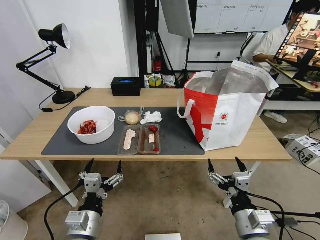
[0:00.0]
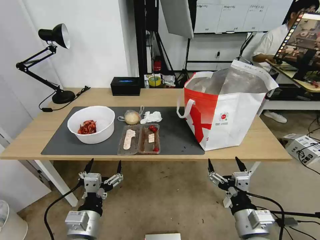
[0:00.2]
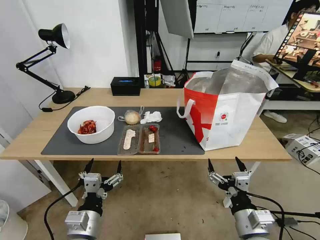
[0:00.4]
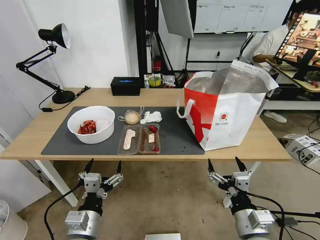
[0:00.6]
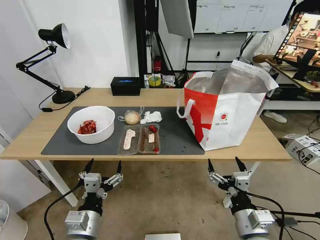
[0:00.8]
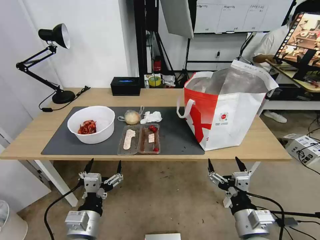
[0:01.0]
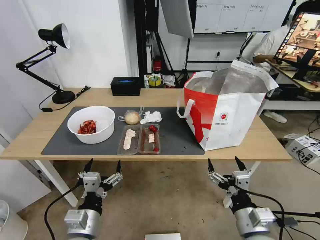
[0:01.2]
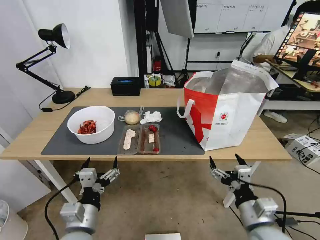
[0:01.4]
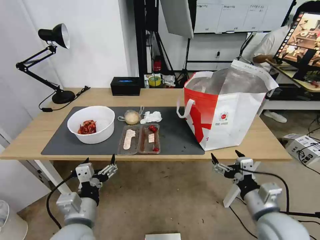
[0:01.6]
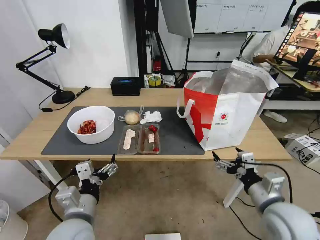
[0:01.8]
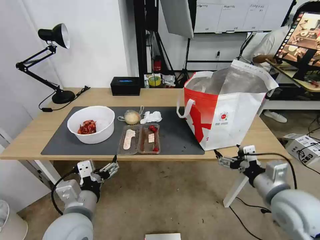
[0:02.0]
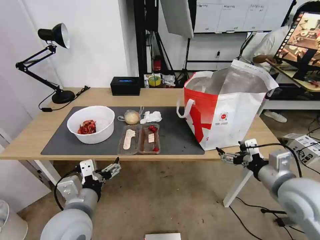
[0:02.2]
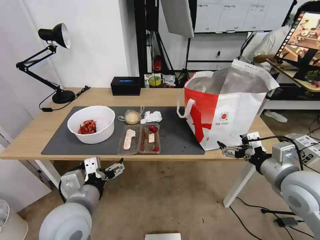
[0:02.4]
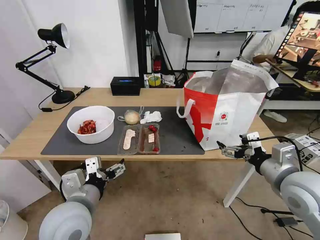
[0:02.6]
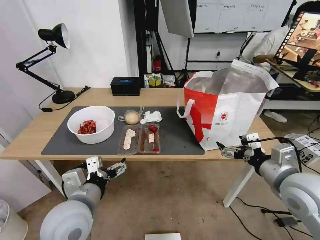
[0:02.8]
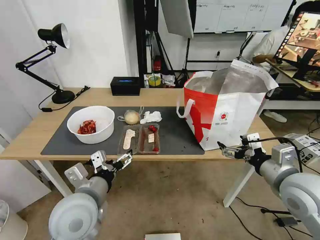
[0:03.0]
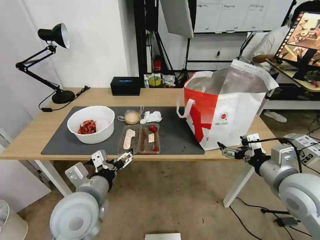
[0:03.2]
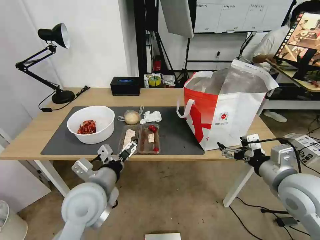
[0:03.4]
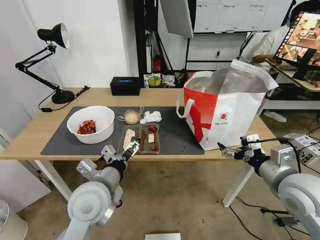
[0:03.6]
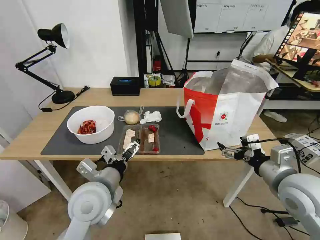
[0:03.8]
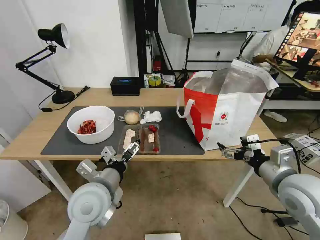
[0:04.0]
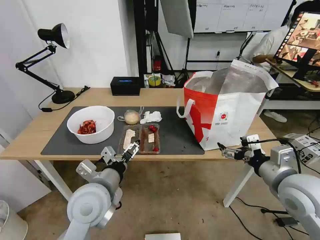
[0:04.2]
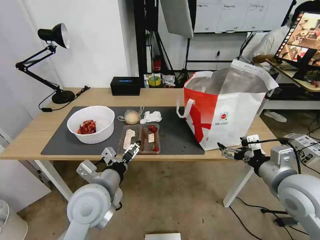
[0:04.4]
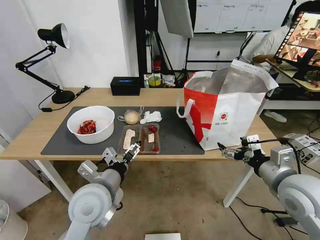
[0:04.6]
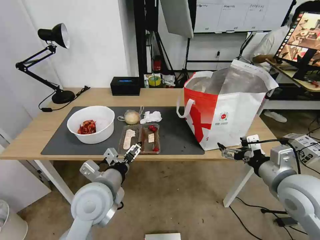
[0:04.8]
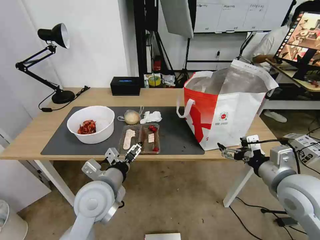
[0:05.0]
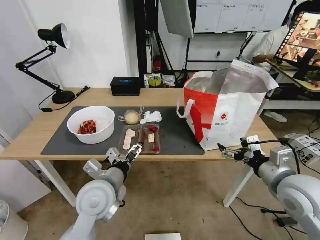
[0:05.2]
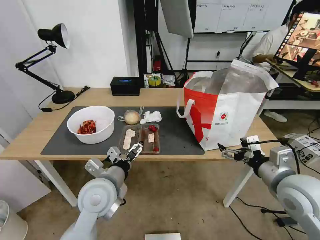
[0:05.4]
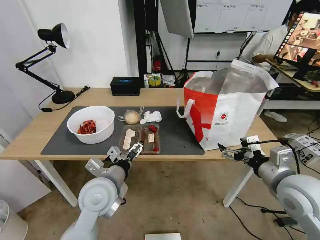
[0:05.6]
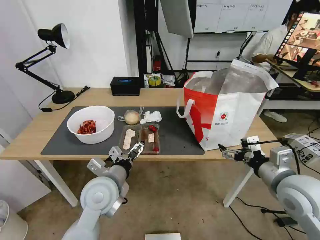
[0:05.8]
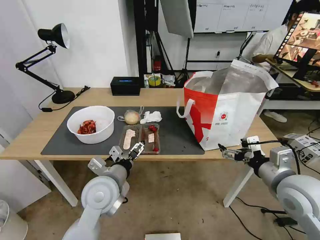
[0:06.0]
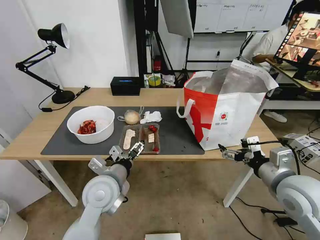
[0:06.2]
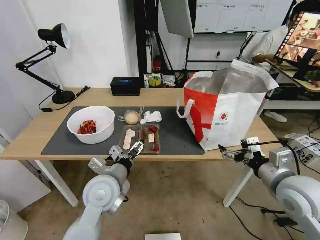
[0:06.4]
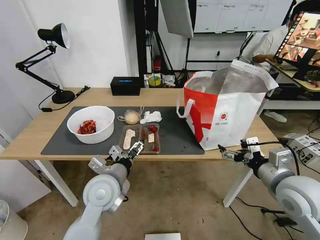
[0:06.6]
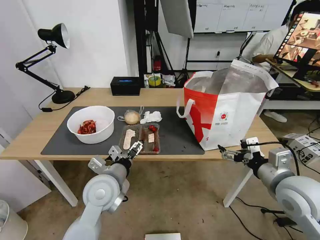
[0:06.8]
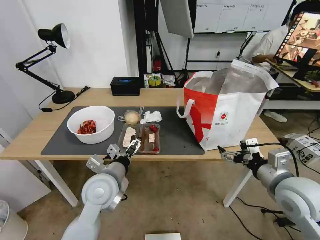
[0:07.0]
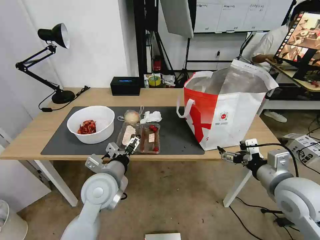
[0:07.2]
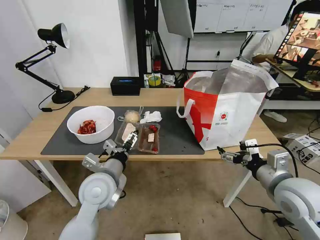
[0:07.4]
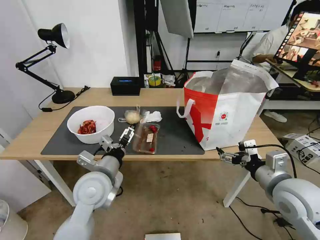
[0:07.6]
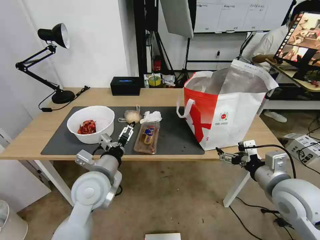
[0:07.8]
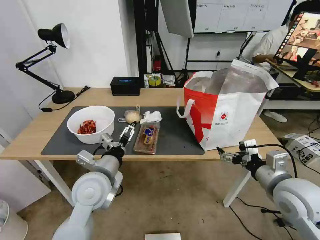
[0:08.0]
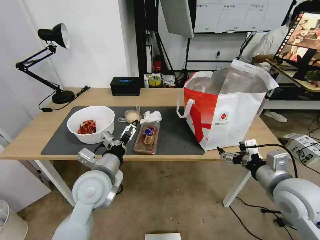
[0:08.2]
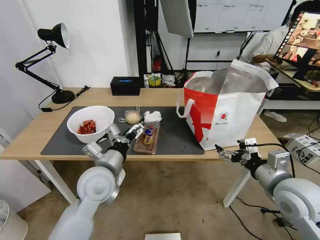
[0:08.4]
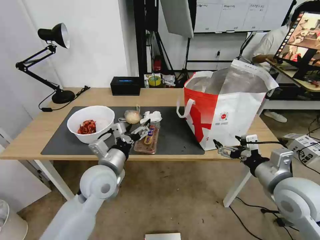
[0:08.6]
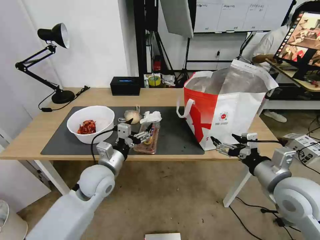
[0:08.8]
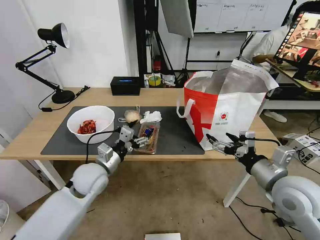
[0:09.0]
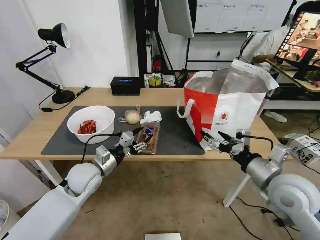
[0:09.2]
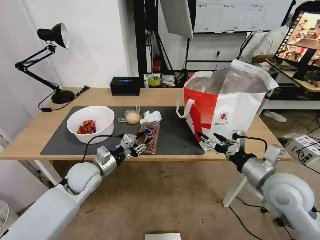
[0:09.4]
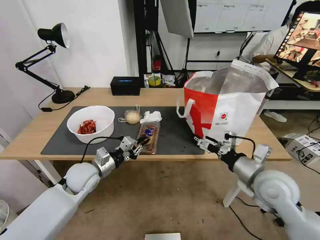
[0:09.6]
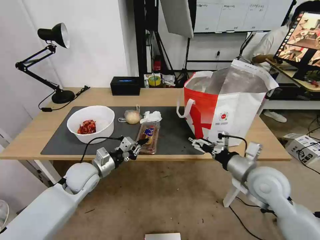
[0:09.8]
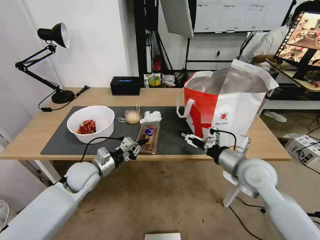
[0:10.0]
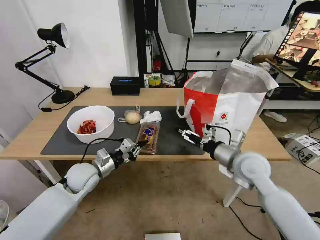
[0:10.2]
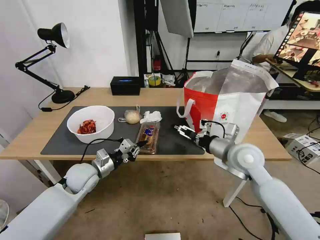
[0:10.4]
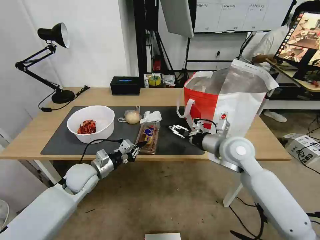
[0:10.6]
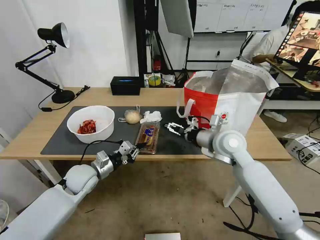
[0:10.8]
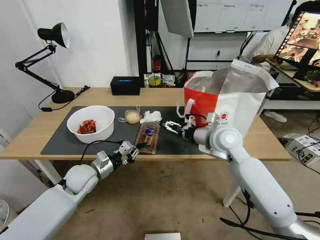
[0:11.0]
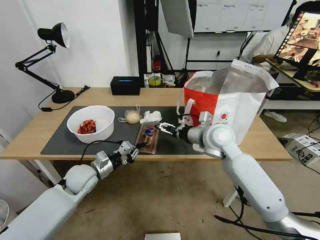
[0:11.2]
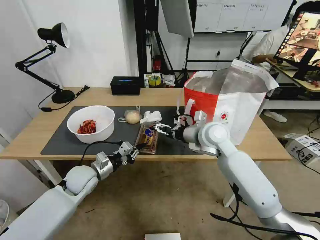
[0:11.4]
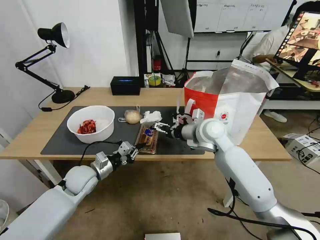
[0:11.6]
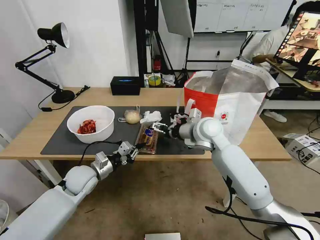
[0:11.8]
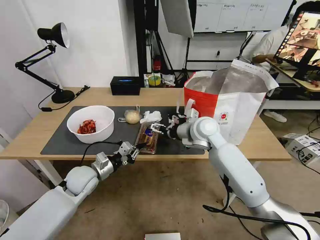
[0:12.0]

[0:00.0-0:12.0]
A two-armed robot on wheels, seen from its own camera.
Task of the whole recording: Pick up the trash from the table and place it into the takeout bag.
0:01.6 to 0:03.0: The right gripper goes roughly 10 cm upward and forward; the left gripper is displaced upward by about 5 cm.
0:04.4 to 0:07.6: The grippers make only small movements.
0:07.6 to 0:09.0: The left gripper goes approximately 5 cm forward.
0:09.0 to 0:10.4: The right gripper moves forward and to the left, about 15 cm. Meanwhile the left gripper shifts by some 5 cm, and closes up.
0:10.4 to 0:12.0: The right gripper moves to the left and forward, approximately 15 cm.

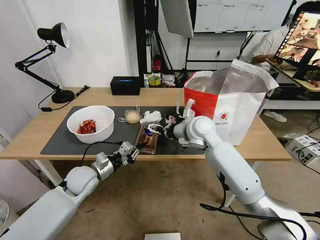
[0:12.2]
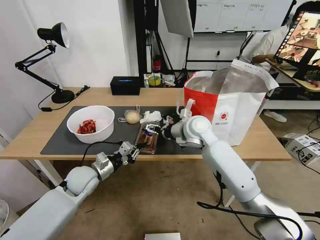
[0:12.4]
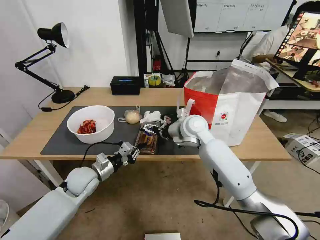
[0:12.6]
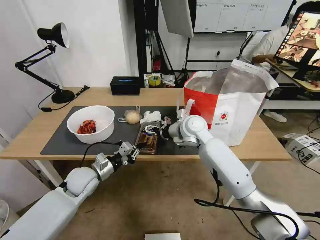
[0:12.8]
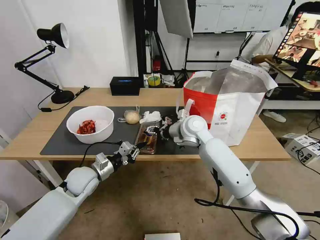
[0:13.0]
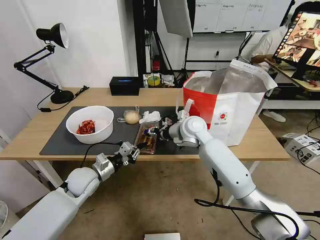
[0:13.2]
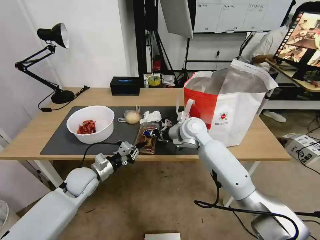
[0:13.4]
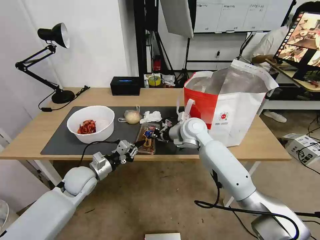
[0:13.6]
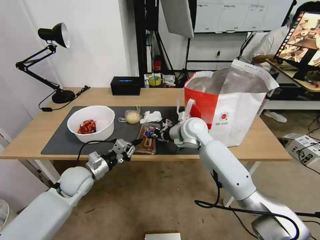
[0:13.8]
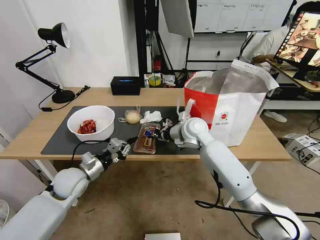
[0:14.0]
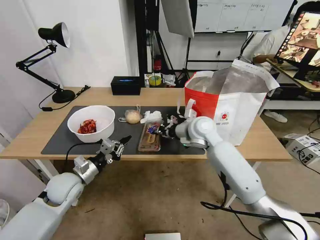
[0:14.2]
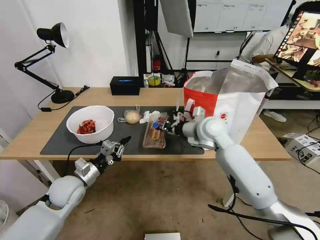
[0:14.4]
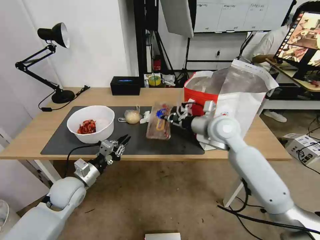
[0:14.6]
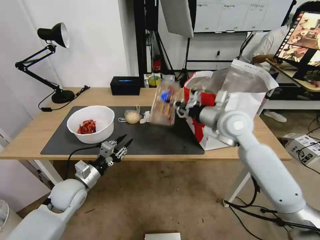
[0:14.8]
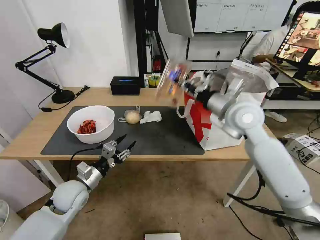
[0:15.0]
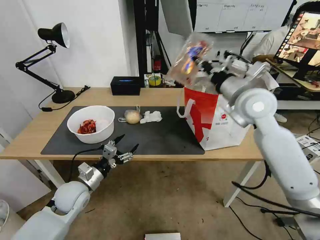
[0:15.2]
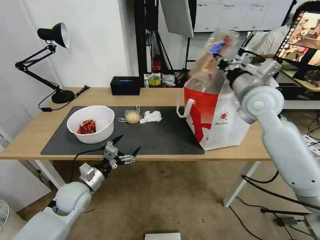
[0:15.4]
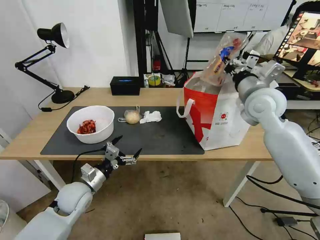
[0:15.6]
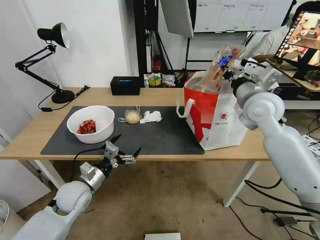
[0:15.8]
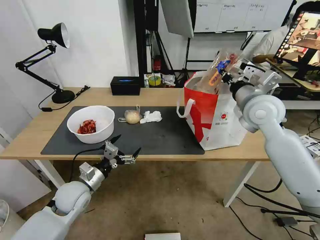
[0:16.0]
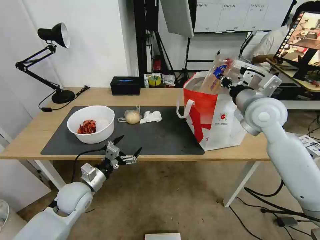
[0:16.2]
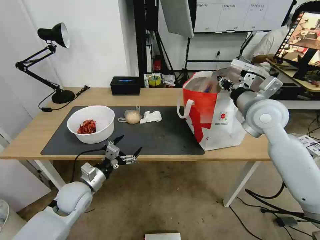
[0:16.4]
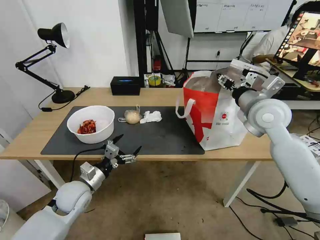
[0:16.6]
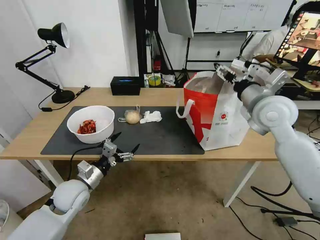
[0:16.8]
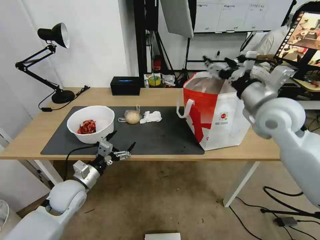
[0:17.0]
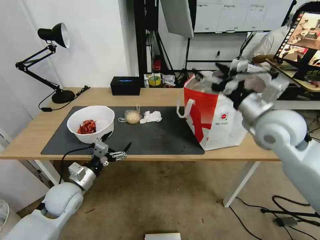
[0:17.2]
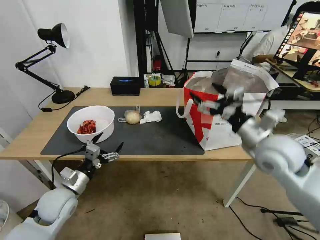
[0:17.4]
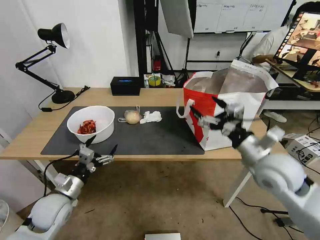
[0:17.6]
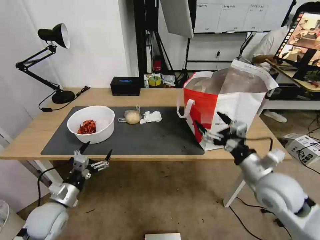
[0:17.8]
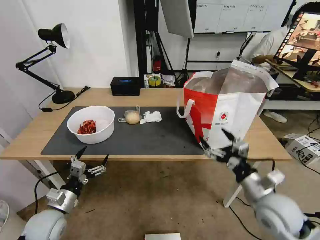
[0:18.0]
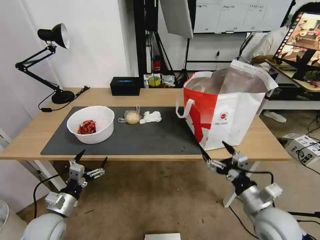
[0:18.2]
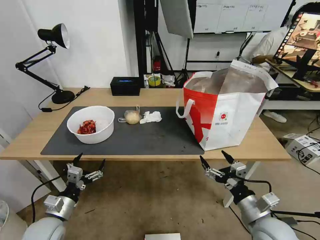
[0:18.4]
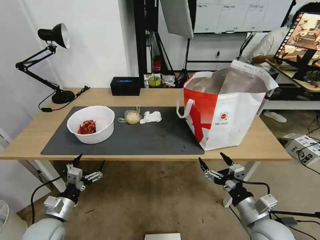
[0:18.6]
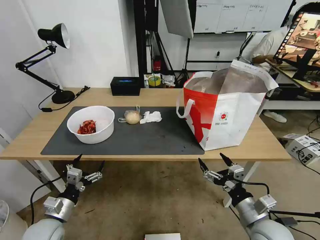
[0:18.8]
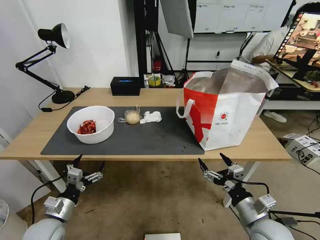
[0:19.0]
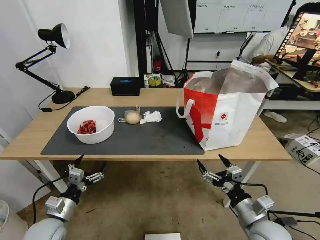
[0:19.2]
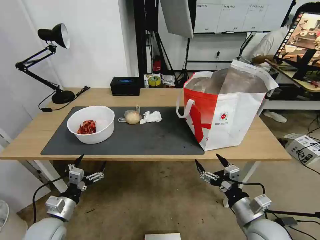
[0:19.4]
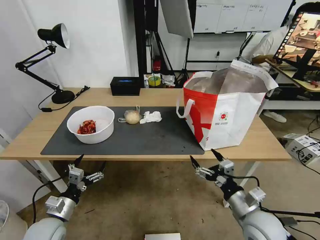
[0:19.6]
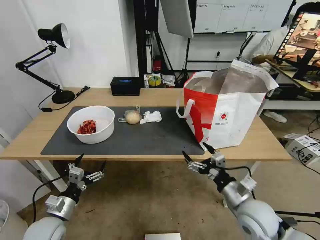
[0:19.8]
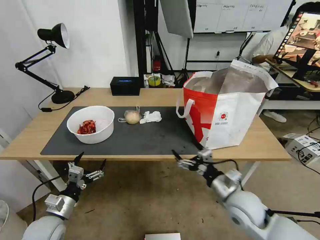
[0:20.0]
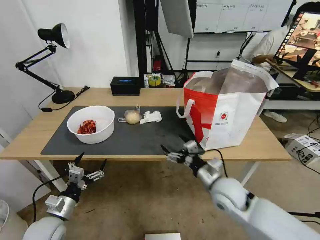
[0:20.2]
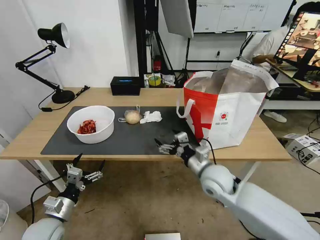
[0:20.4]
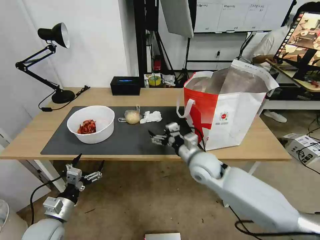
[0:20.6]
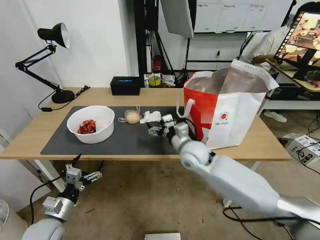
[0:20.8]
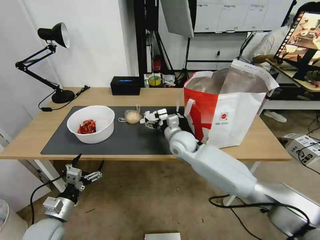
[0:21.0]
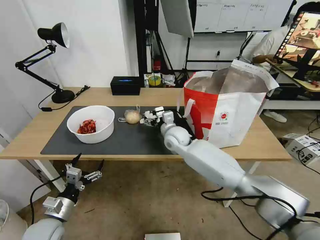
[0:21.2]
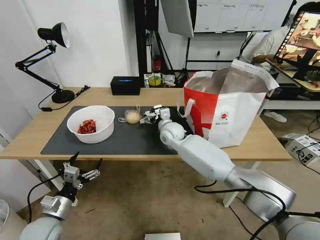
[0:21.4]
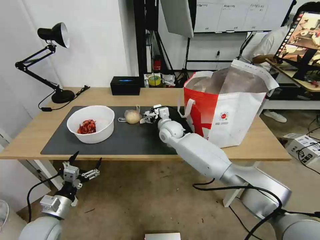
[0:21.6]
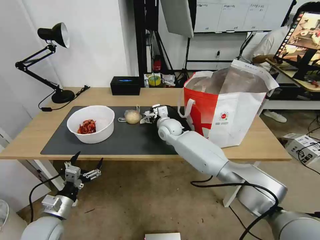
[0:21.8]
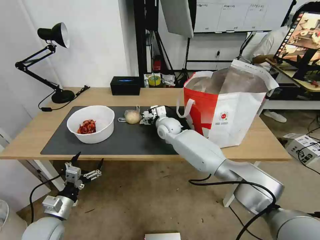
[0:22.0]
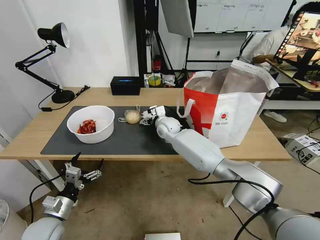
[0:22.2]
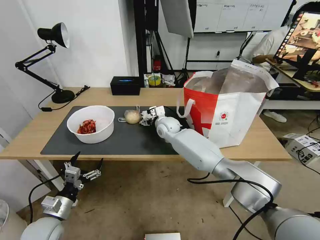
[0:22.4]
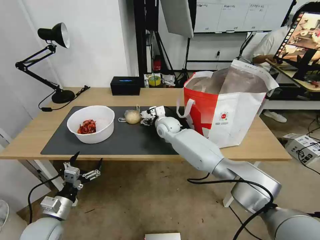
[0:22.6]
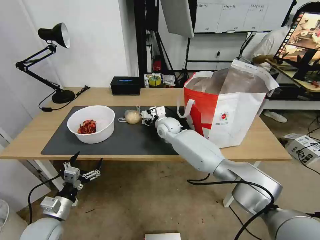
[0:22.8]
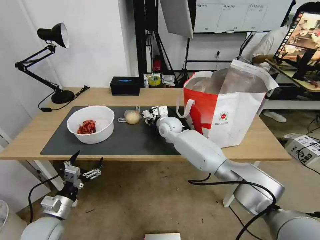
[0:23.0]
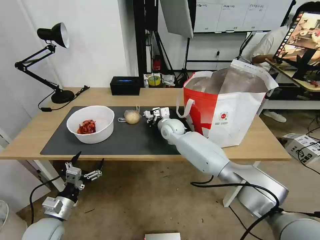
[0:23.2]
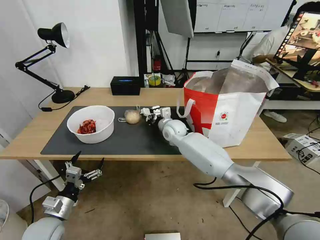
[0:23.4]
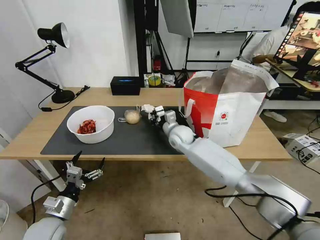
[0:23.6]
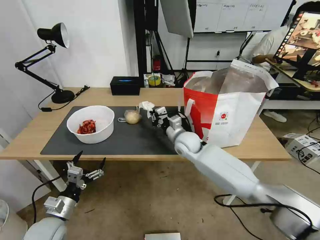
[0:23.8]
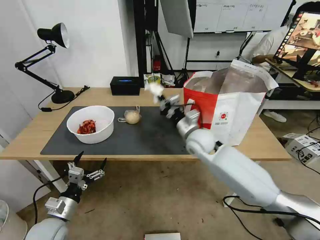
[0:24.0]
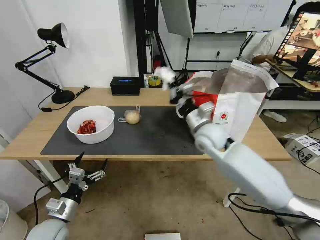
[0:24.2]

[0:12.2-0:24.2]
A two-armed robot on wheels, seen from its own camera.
Task of the whole recording: Pick up the trash from the table and place it into the takeout bag.
0:12.2 to 0:13.8: The right gripper closes its fingers.
0:13.8 to 0:15.2: The right gripper shifts approximately 20 cm upward and to the right; the left gripper opens its fingers.
0:15.2 to 0:16.6: The right gripper changes place by approximately 5 cm, and opens.
0:16.6 to 0:18.2: The right gripper goes some 30 cm backward and downward, and opens; the left gripper travels backward and to the left by roughly 10 cm.
0:18.2 to 0:19.8: The grippers stay close to where they were, moving slightly.
0:19.8 to 0:21.2: The right gripper moves forward and to the left, approximately 35 cm.
0:21.2 to 0:22.6: The right gripper heads forward, covering roughly 10 cm.
0:22.6 to 0:24.2: The right gripper moves to the right, backward and upward, roughly 20 cm, and closes up.
